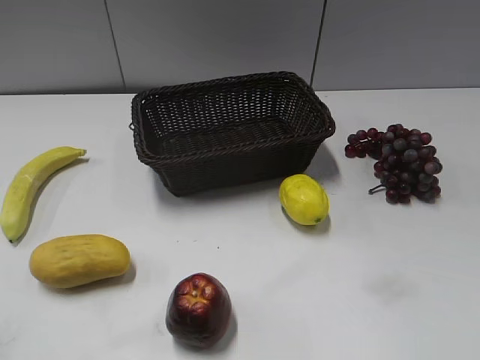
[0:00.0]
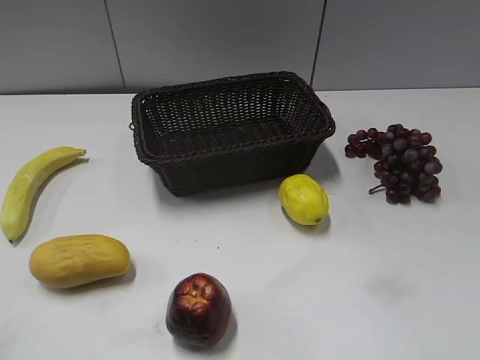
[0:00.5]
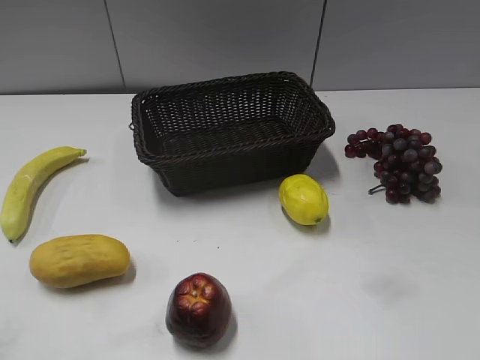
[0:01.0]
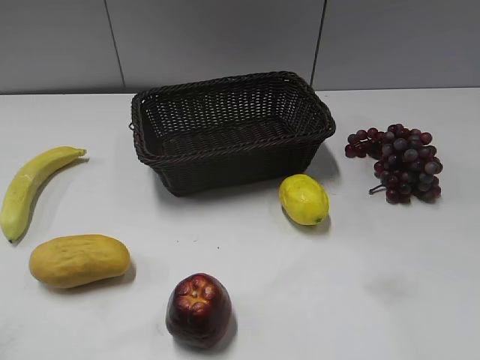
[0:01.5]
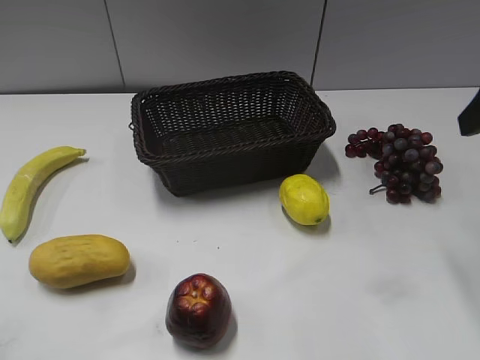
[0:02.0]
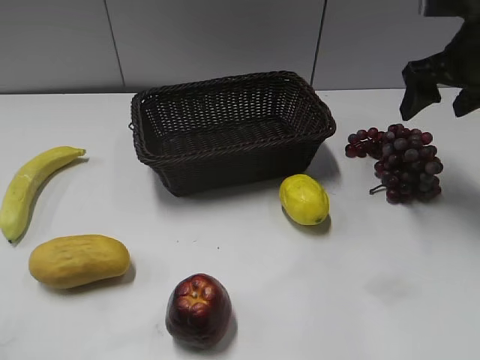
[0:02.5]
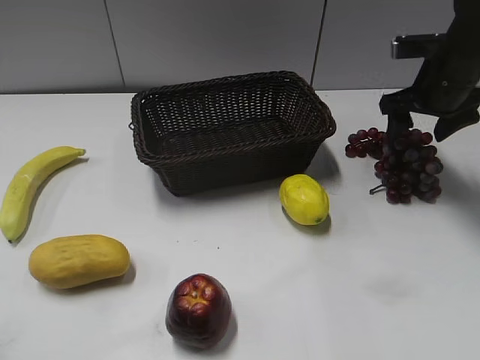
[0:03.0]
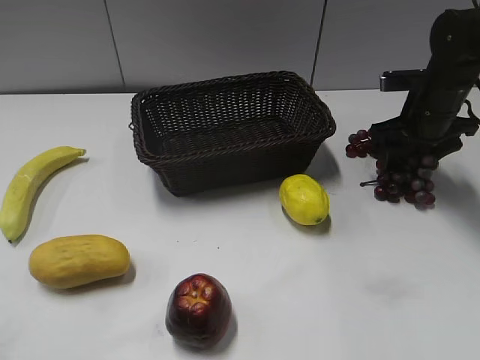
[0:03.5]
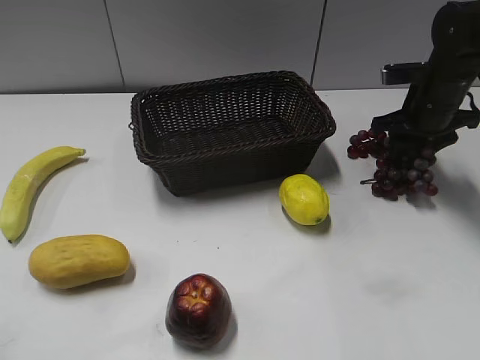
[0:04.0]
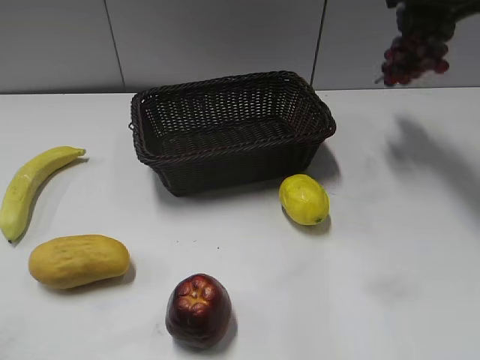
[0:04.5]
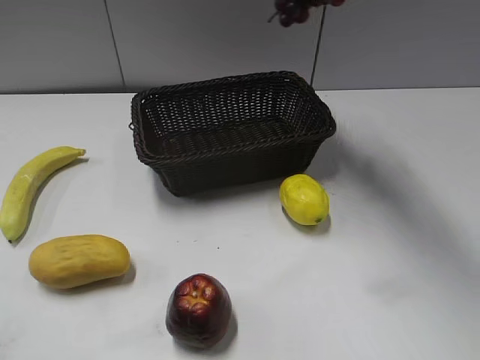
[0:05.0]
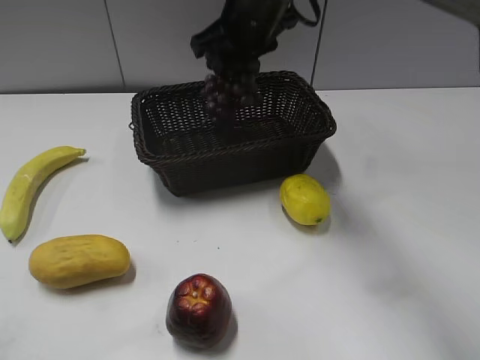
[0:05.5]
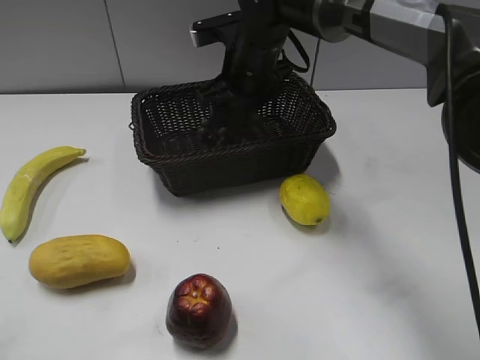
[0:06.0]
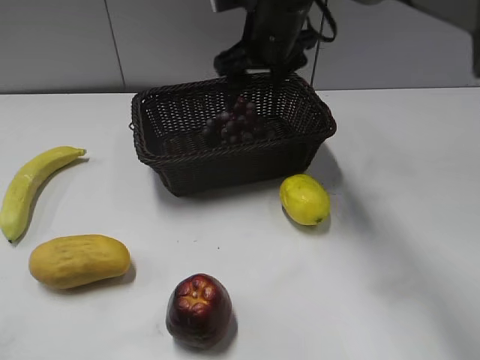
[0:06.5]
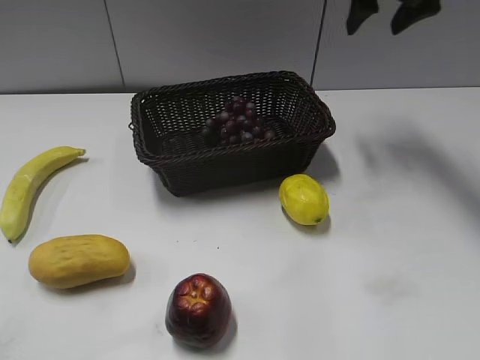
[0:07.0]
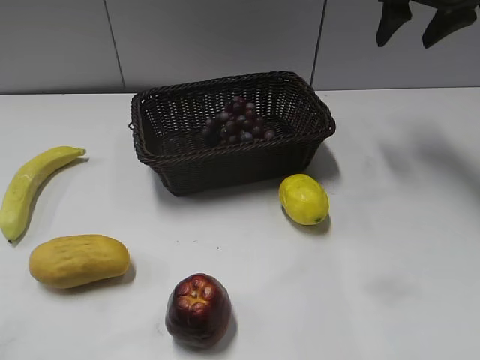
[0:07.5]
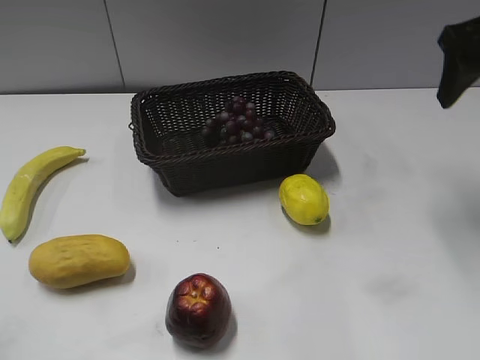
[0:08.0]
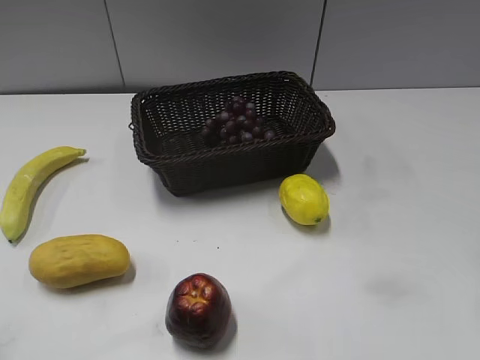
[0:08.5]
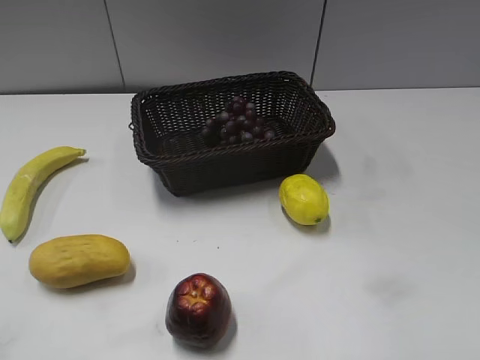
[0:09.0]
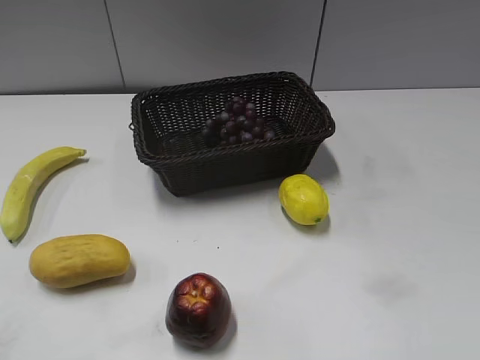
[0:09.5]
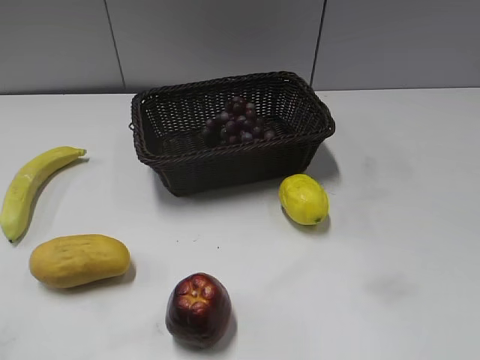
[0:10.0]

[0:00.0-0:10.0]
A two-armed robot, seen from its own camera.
Step, 0:02.0 to 0:03.5: Grasp the grape with right gripper.
Step, 0:04.0 to 0:06.0: Place the grape in the basket with right gripper.
0:02.0 to 0:04.0: The right gripper goes some 25 cm forward and downward, and closes up.
0:04.0 to 0:06.0: The right gripper travels to the left by approximately 25 cm, and opens up.
0:06.0 to 0:08.0: The right gripper heads to the right and upward, covering about 30 cm.
0:08.0 to 0:10.0: The right gripper is displaced backward by roughly 30 cm.

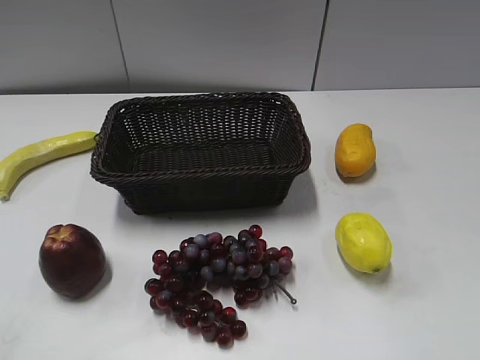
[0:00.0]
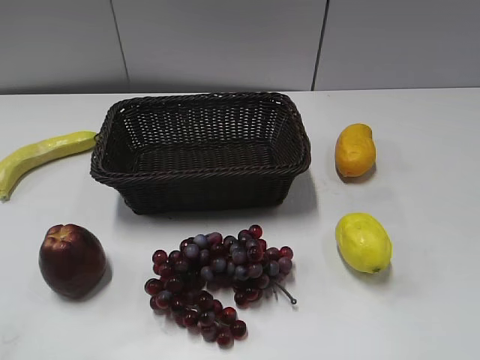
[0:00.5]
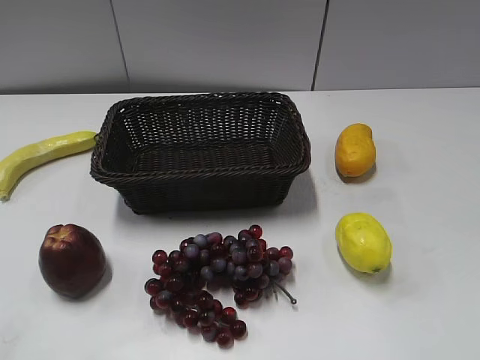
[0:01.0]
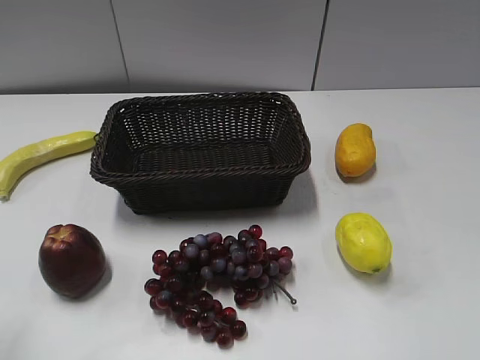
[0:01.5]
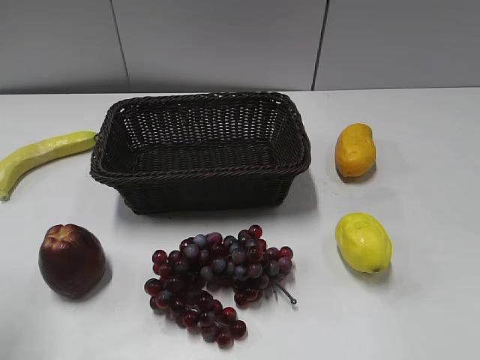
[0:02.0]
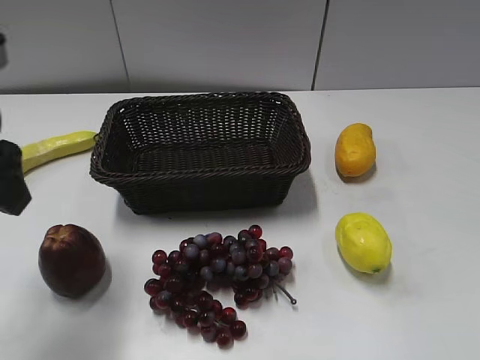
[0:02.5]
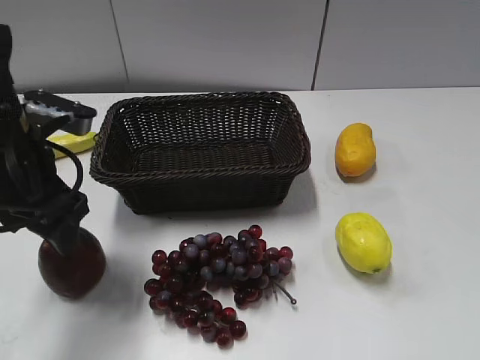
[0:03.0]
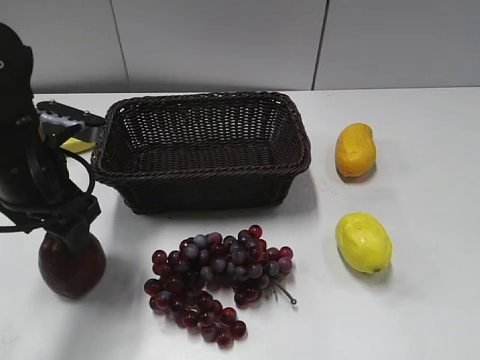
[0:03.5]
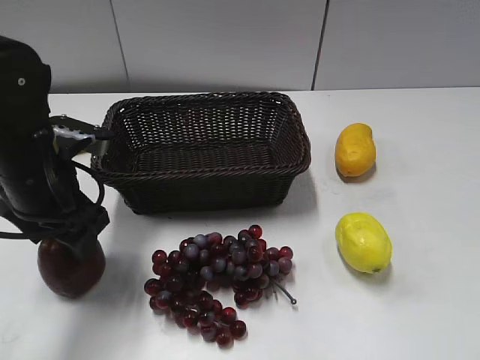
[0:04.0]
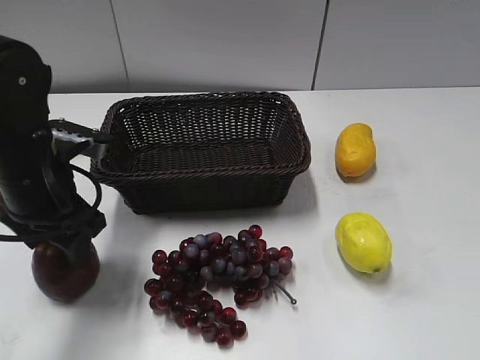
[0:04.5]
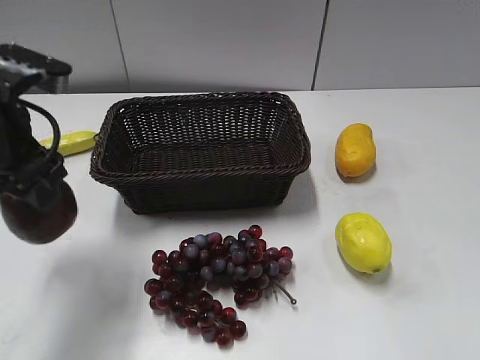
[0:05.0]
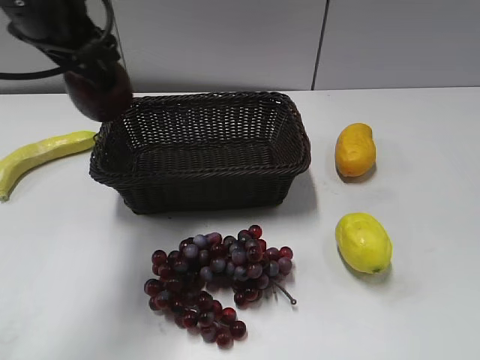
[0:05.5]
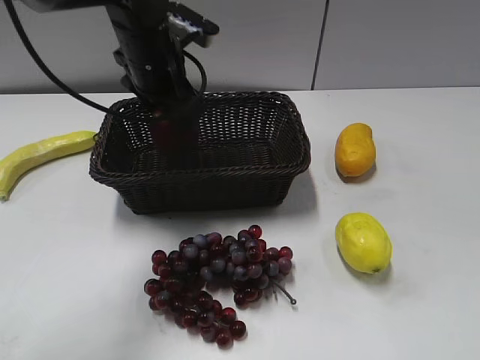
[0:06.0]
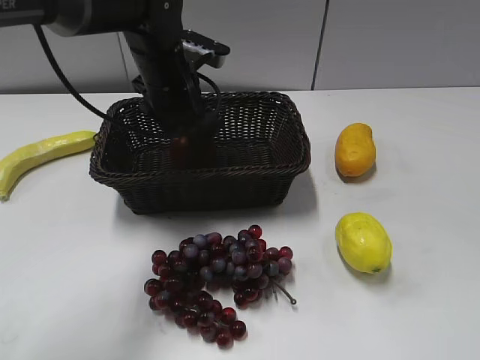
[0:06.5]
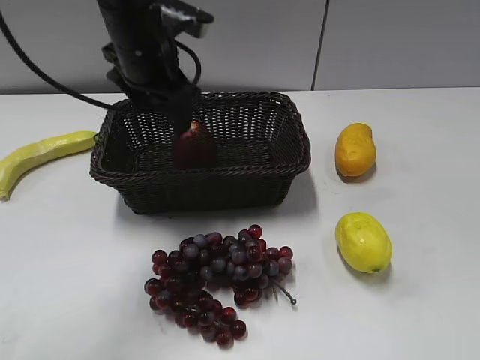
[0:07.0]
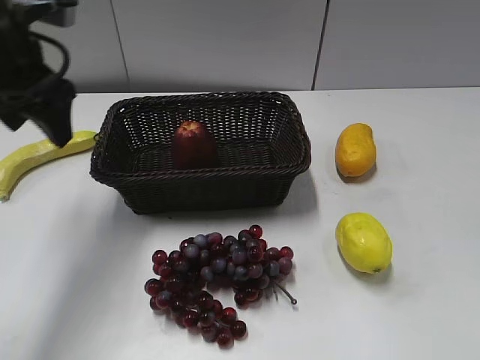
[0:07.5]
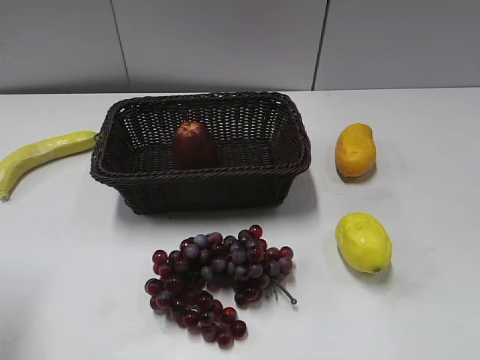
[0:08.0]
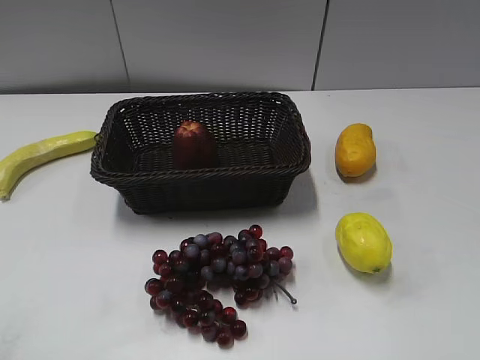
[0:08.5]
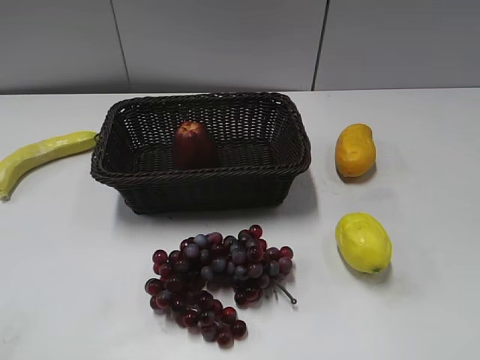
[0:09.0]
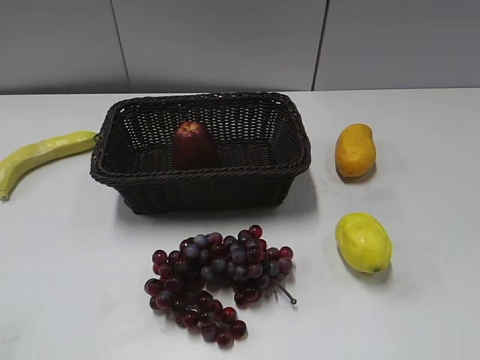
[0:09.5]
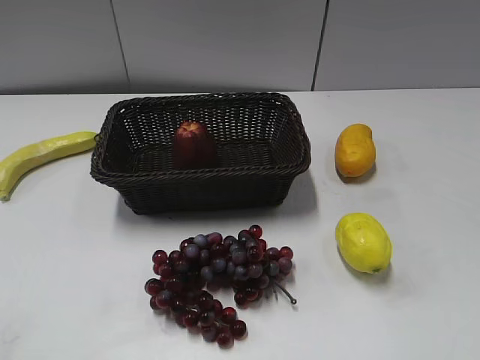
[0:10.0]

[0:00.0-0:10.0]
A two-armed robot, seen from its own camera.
Step, 0:01.0 to 0:04.5: Grasp the apple with left gripper.
Step, 0:05.0 to 0:06.5: Place the apple in the basket with left gripper.
0:02.0 to 0:04.0: The left gripper travels downward, forward and to the right by about 20 cm.
0:04.0 to 0:06.0: The left gripper travels forward and to the right by some 15 cm, and closes its fingers.
0:06.0 to 0:08.0: The left gripper heads backward and to the left, covering approximately 35 cm, and opens.
0:08.0 to 0:10.0: The left gripper travels backward by roughly 15 cm.

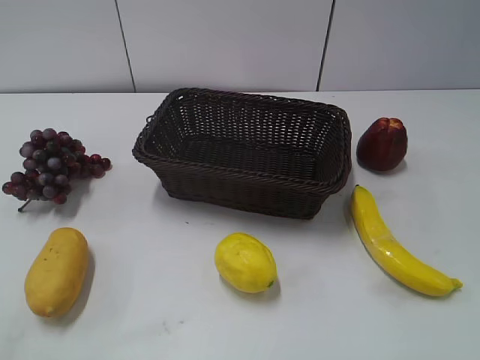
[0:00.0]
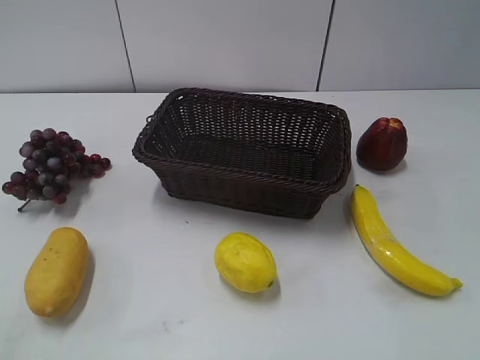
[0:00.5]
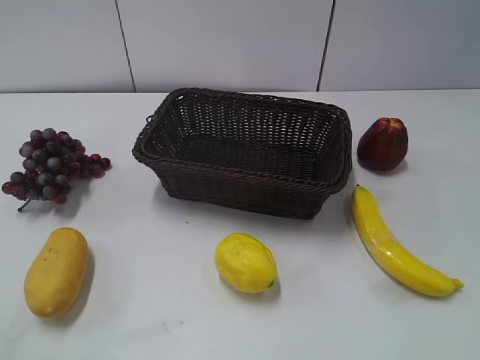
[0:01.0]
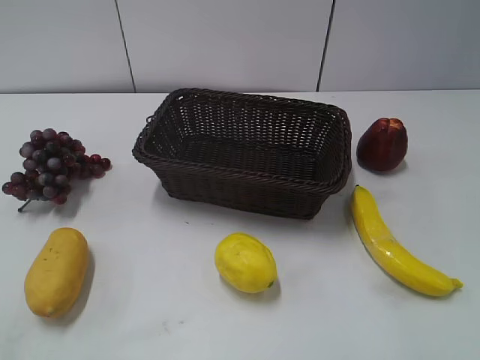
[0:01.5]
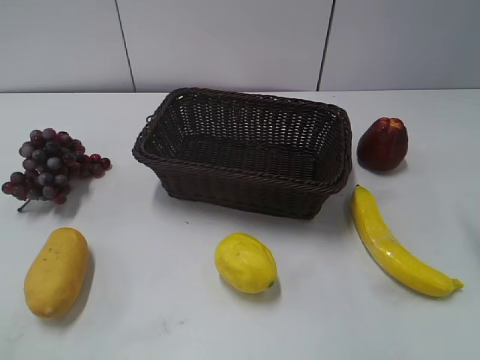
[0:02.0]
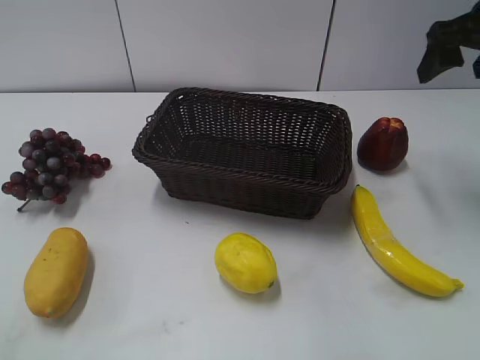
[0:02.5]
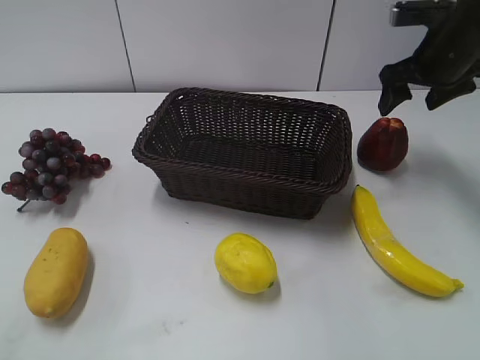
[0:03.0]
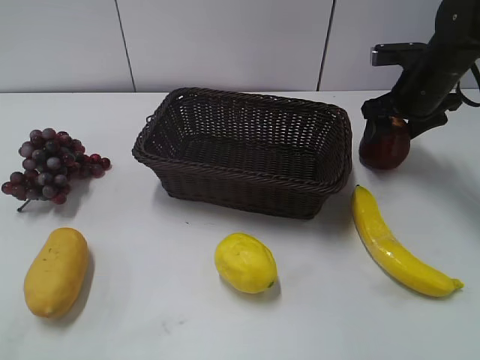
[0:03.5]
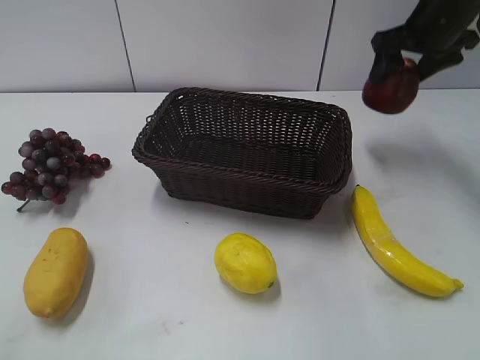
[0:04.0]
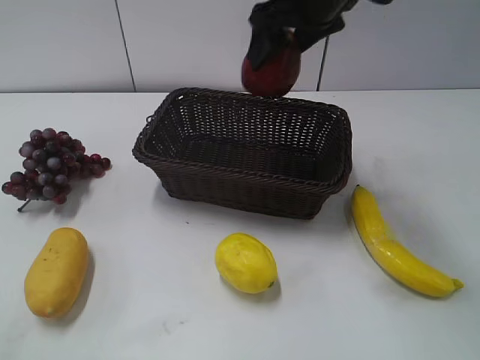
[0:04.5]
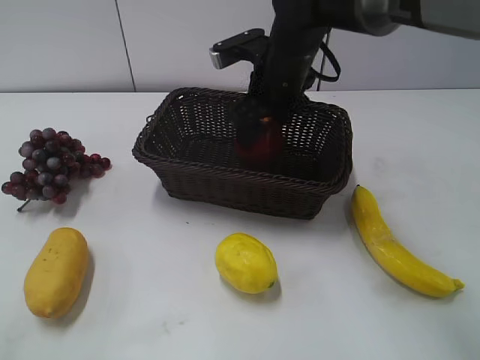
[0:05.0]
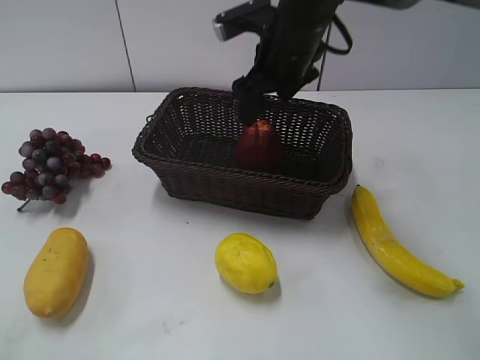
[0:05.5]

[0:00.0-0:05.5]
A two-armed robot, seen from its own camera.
Step, 0:02.5 to 0:03.0: Grasp the apple with right gripper.
Step, 0:03.5 to 0:05.0: Place the apple in the basket with right gripper.
0:02.0 to 0:03.5: The right gripper moves forward and downward, roughly 25 cm.
0:03.5 to 0:05.5: The right gripper heads to the left, covering approximately 20 cm.
